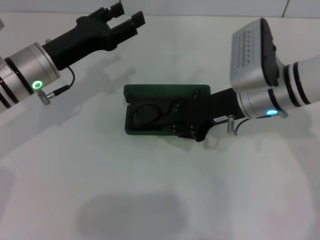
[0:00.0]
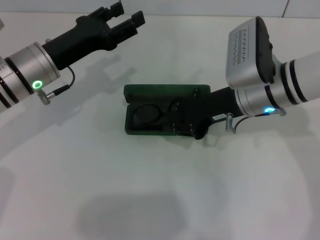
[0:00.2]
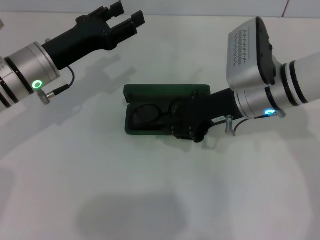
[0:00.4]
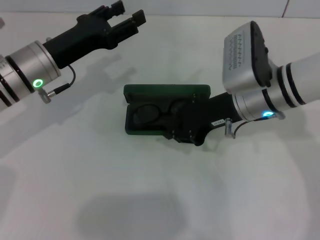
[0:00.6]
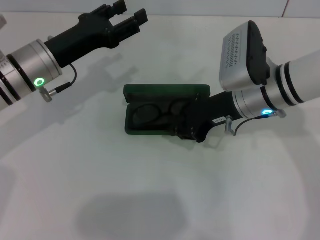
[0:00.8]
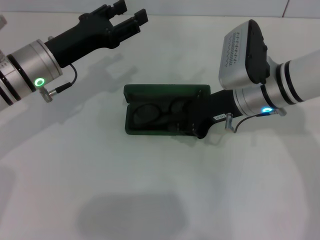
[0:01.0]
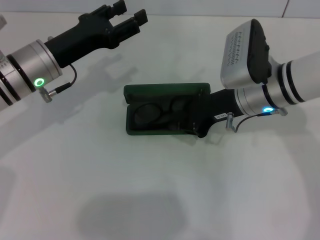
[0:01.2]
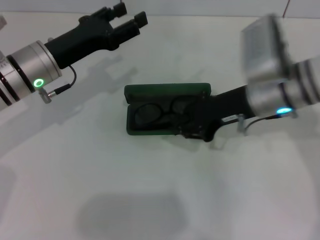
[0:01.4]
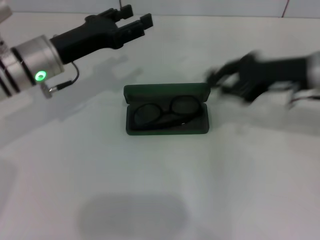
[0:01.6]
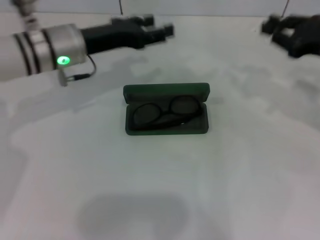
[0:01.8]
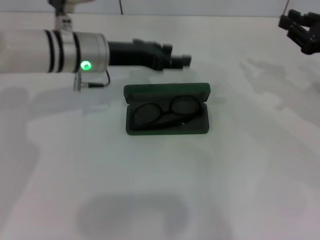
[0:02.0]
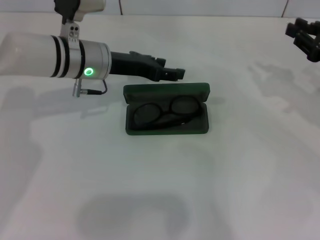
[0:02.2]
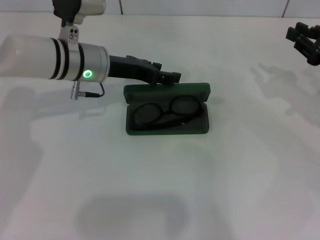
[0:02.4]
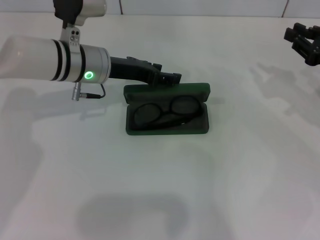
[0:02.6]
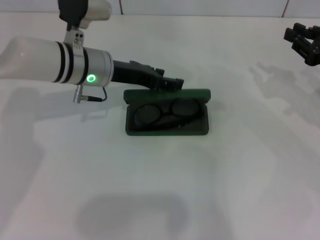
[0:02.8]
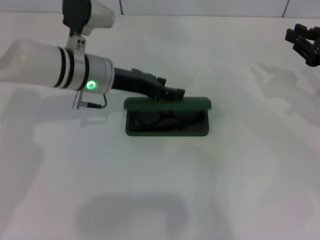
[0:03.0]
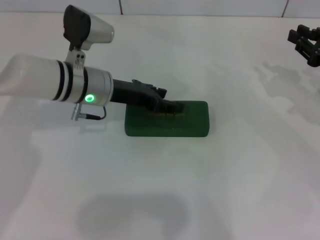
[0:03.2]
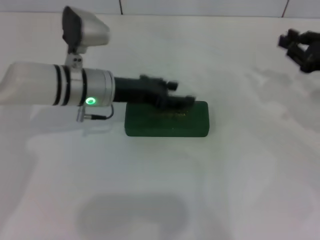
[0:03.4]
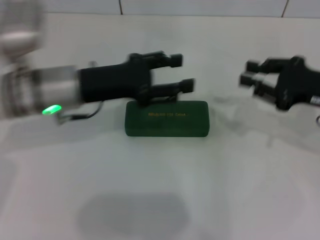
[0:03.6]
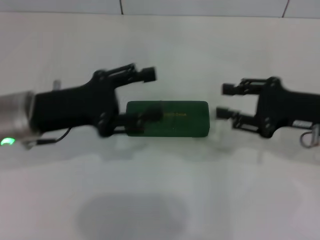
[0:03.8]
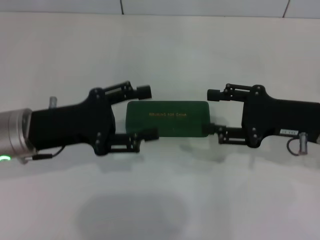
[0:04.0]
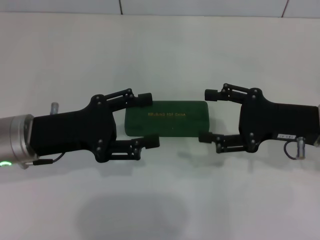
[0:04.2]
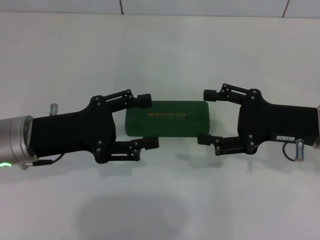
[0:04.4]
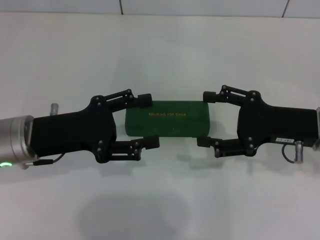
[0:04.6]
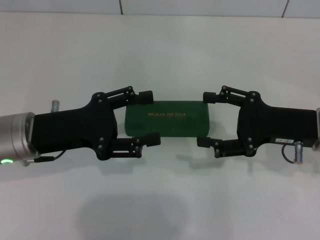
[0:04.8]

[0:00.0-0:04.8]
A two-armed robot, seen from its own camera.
Step, 0:01.6 to 0:03.2: Close the glasses case with your left hand.
0:00.0 to 0:01.6: The right gripper goes roughly 10 cm to the right.
0:01.6 to 0:03.2: The two grippers go approximately 10 cm to the right.
0:03.2 to 0:04.8: The left gripper shifts some 15 cm backward and to the left. Meanwhile the right gripper is displaced to the left and backward by approximately 10 cm, and opens its fingers.
